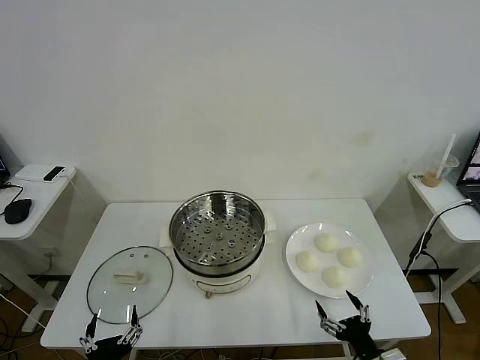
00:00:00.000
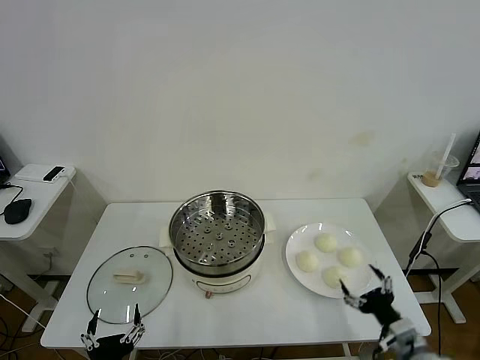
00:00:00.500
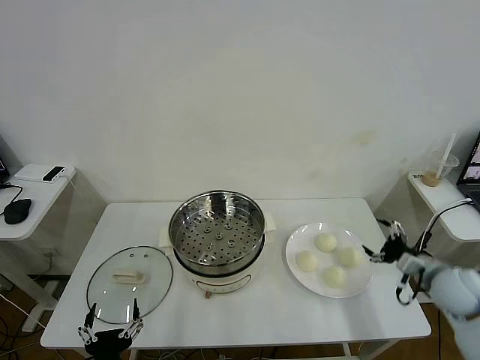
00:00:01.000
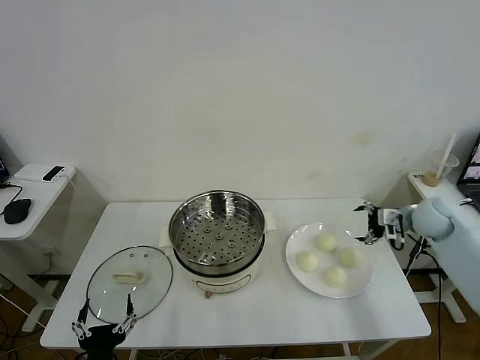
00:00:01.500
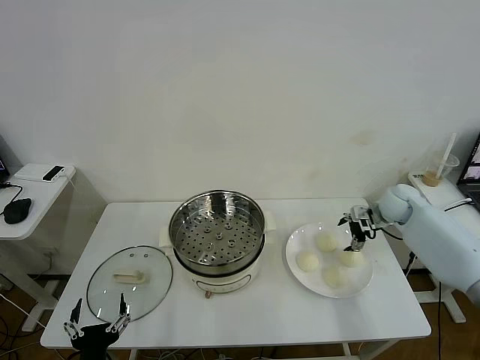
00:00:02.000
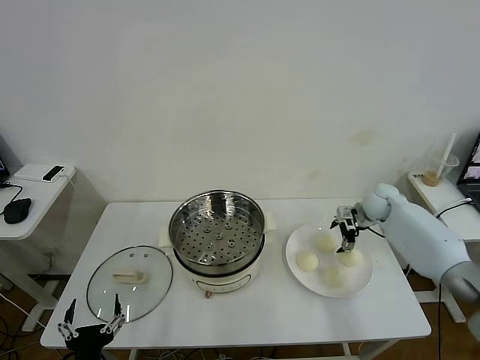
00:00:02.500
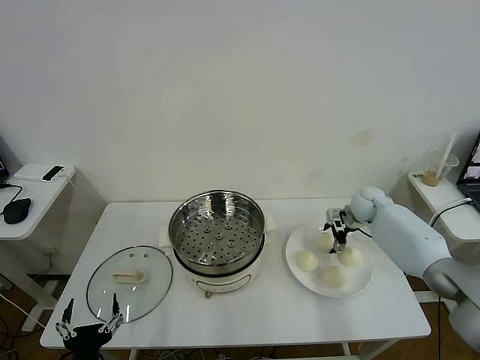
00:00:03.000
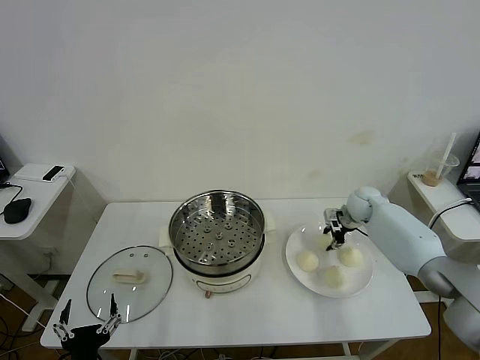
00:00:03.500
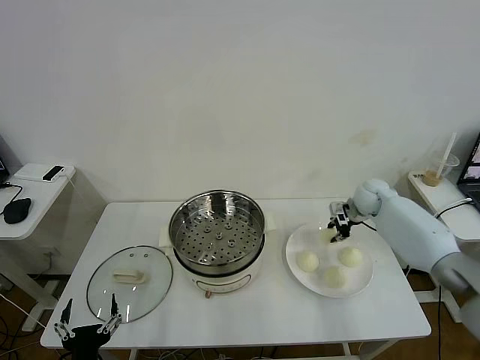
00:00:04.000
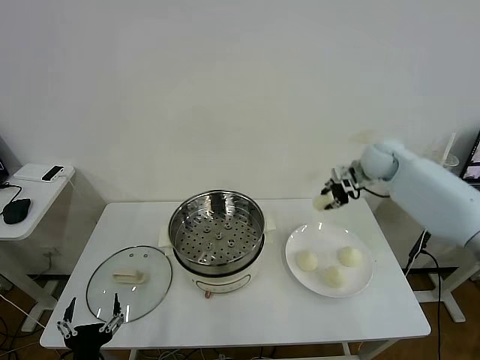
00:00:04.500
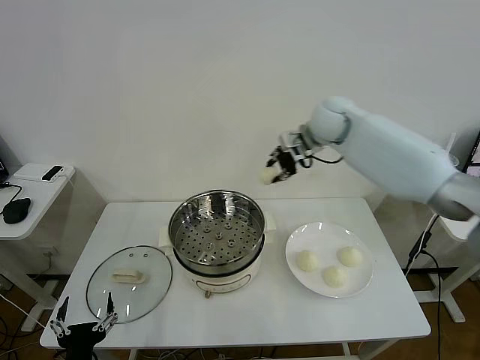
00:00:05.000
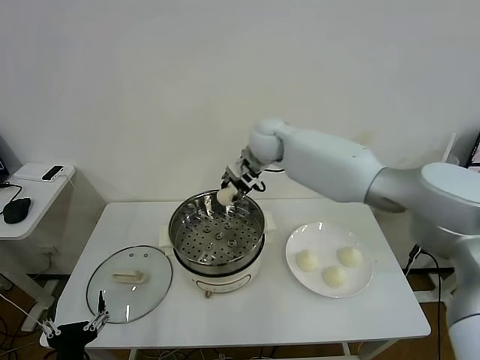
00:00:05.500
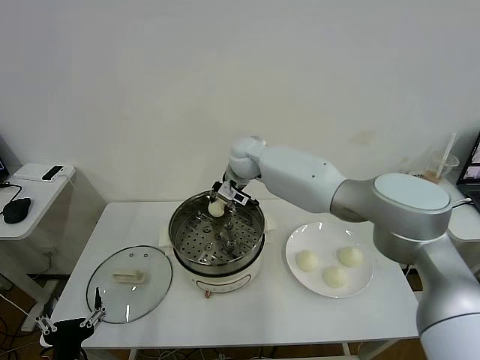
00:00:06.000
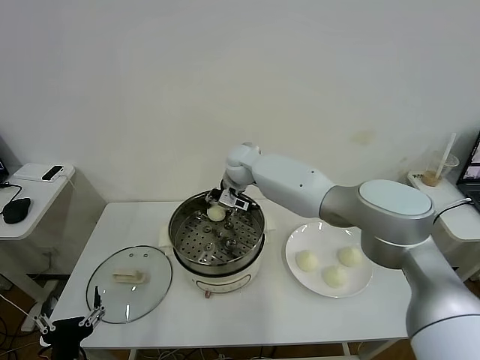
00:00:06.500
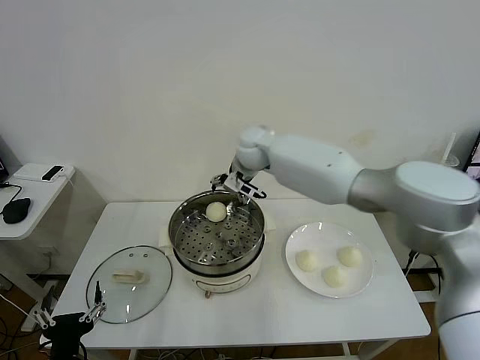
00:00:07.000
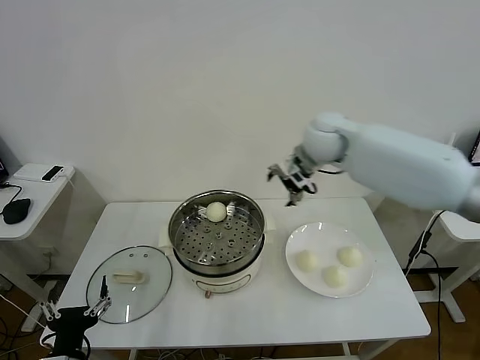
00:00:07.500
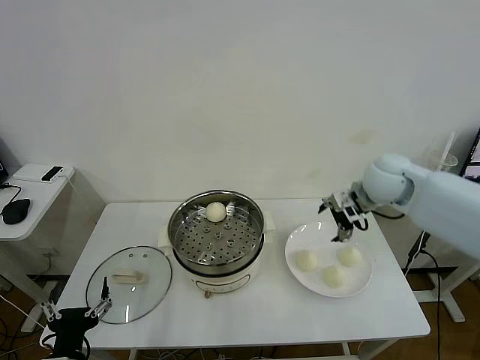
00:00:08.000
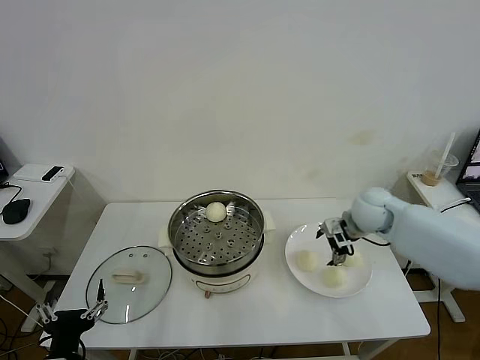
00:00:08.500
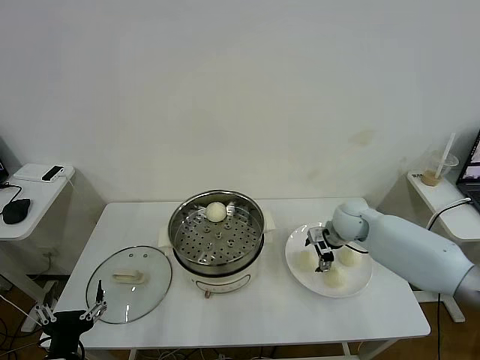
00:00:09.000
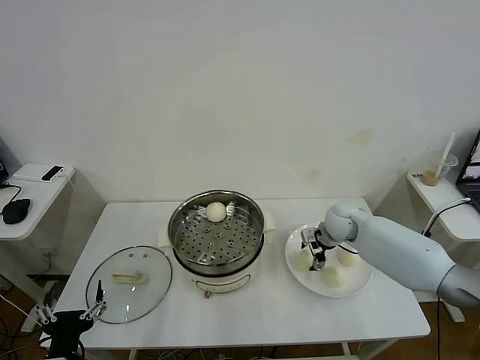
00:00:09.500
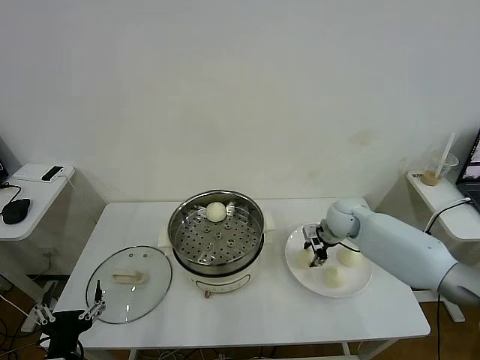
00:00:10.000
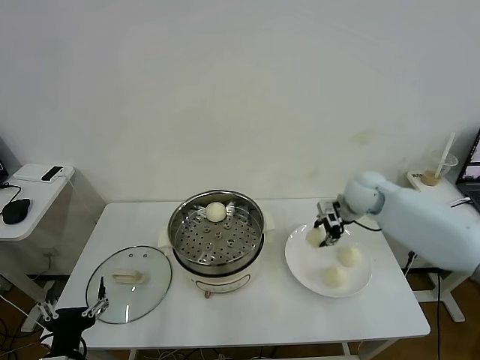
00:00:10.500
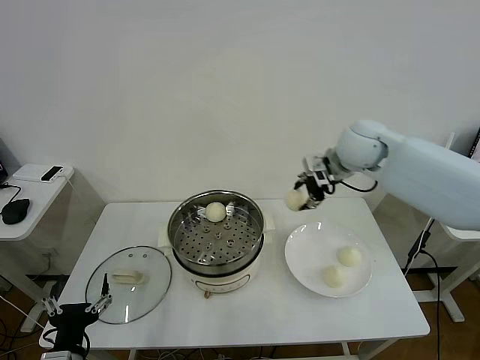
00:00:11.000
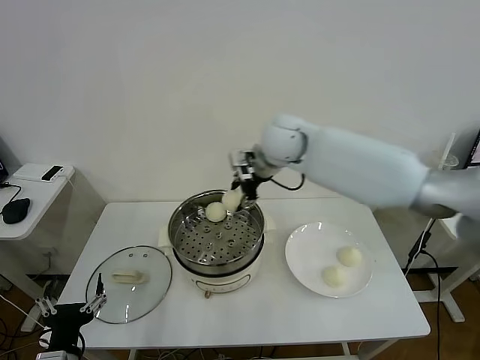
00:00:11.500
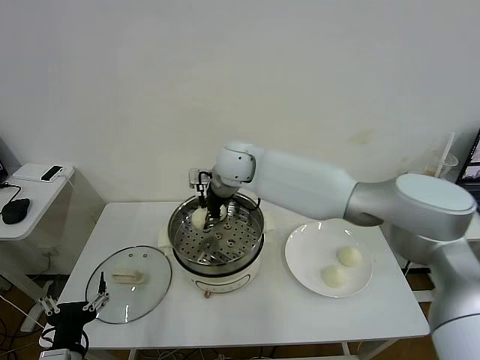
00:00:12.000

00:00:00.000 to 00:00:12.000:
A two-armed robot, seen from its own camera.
Task of the whole recording: take steamed baozi put them in steamer then cover it.
Step, 00:00:00.000 to 00:00:03.500: Grasp the baozi in the plate with right gripper.
Step, 00:00:04.000 to 00:00:06.500: Place the baozi on the steamer with right gripper.
Step, 00:00:07.000 to 00:00:09.500: Grasp the baozi in the plate with right gripper.
00:00:02.000 to 00:00:04.000: The right gripper ends up some 5 cm from where it was, and closes.
00:00:04.000 to 00:00:06.000: The right gripper is displaced to the left by approximately 35 cm.
00:00:06.000 to 00:00:08.000: The right gripper is displaced to the right by some 30 cm, and opens.
00:00:08.000 to 00:00:10.000: The right gripper is displaced downward by about 15 cm, and closes its fingers.
00:00:10.000 to 00:00:12.000: The right gripper shifts about 30 cm to the left and upward.

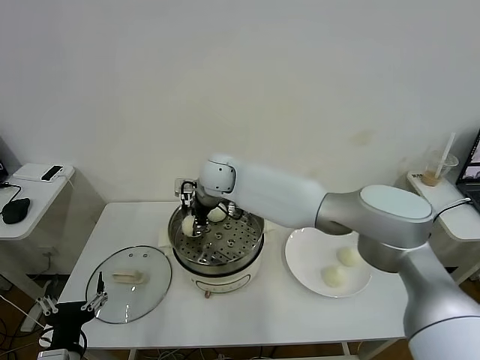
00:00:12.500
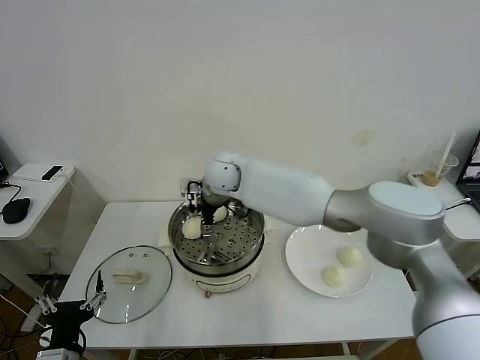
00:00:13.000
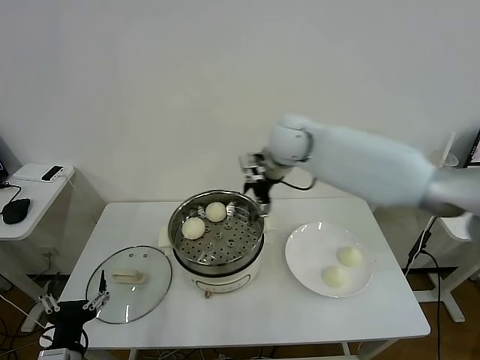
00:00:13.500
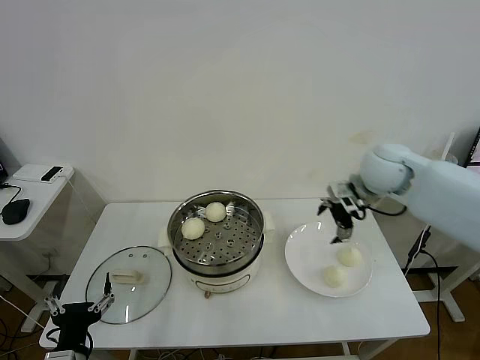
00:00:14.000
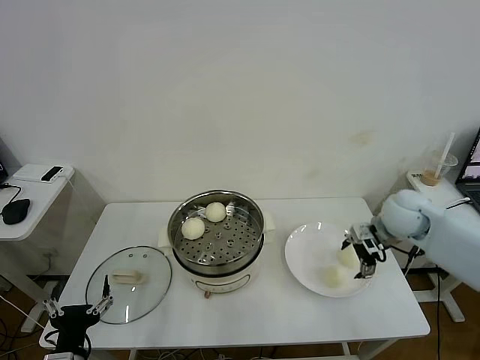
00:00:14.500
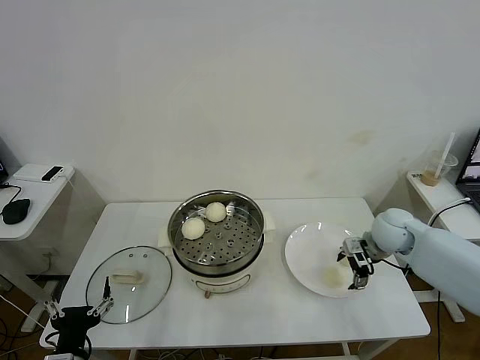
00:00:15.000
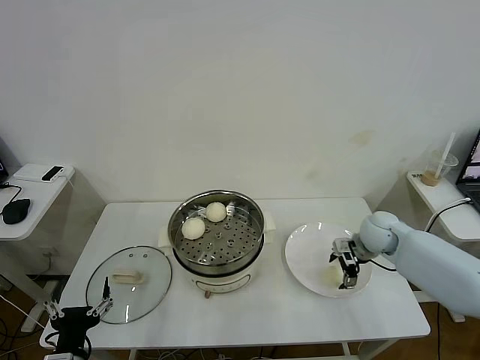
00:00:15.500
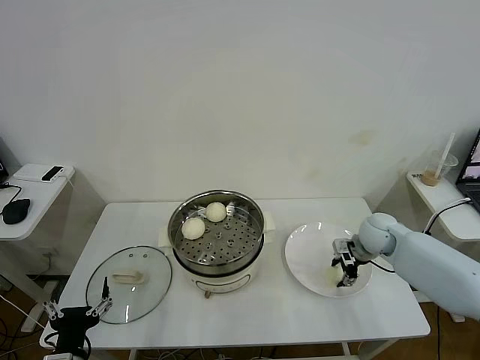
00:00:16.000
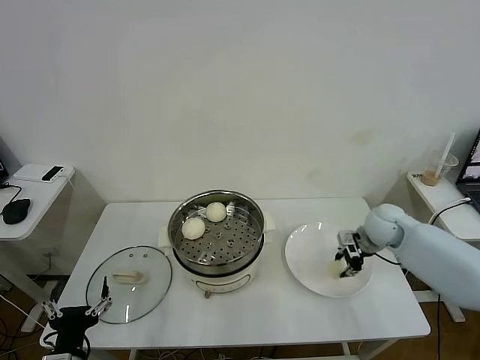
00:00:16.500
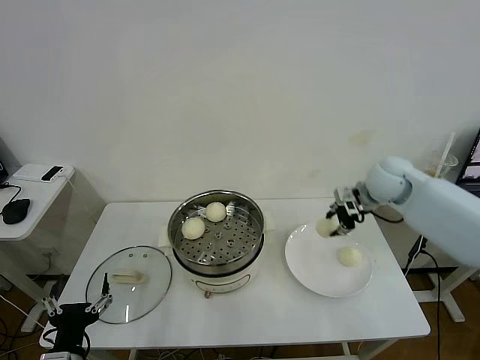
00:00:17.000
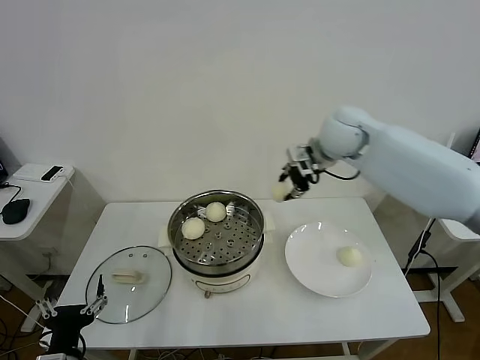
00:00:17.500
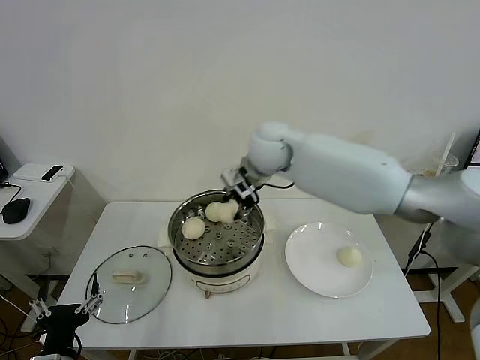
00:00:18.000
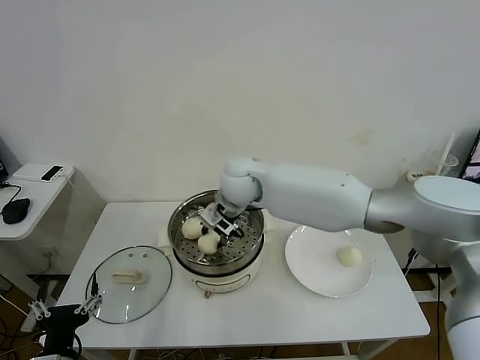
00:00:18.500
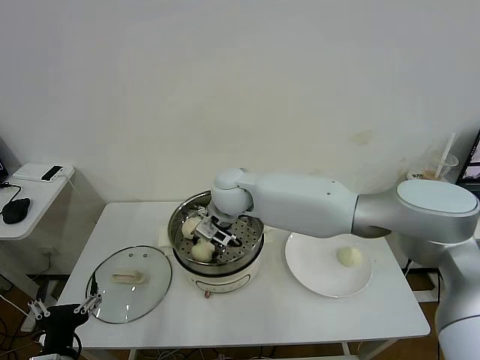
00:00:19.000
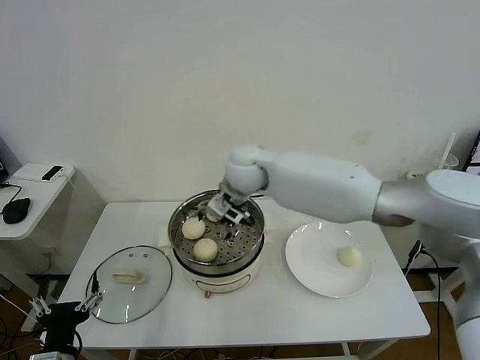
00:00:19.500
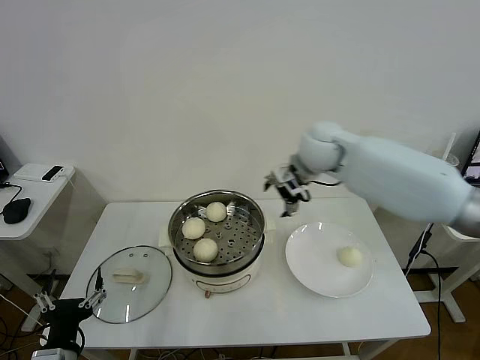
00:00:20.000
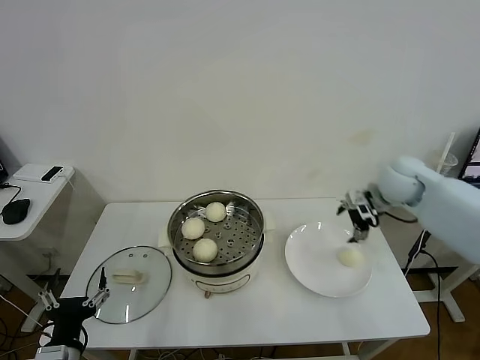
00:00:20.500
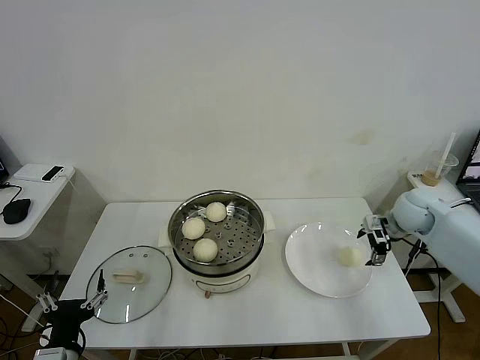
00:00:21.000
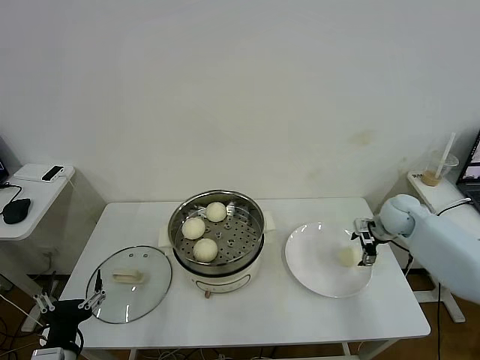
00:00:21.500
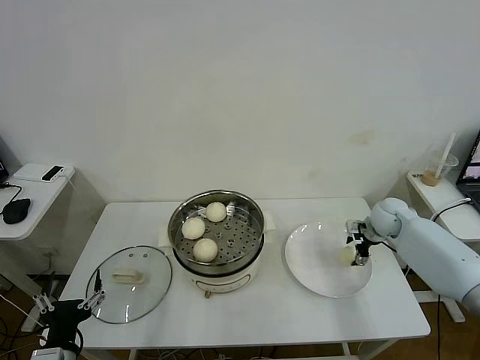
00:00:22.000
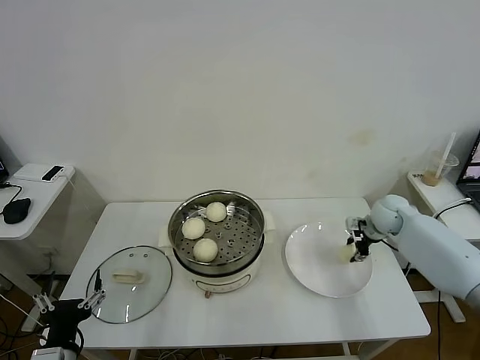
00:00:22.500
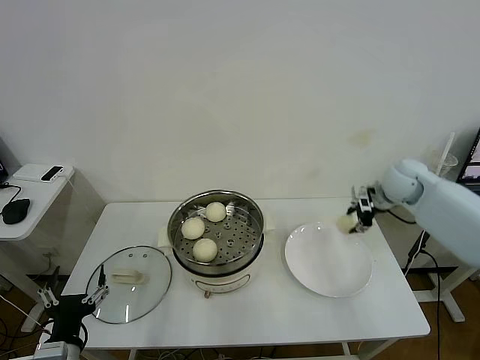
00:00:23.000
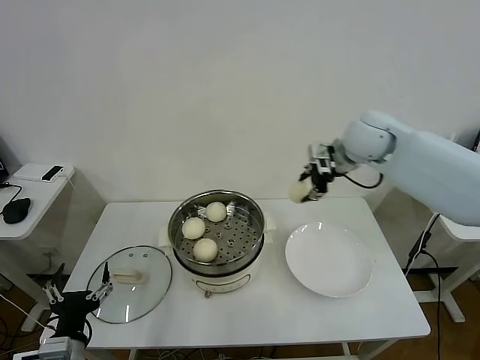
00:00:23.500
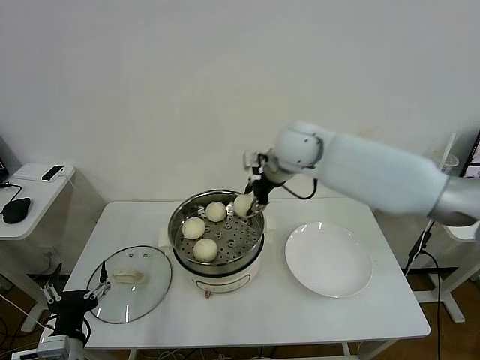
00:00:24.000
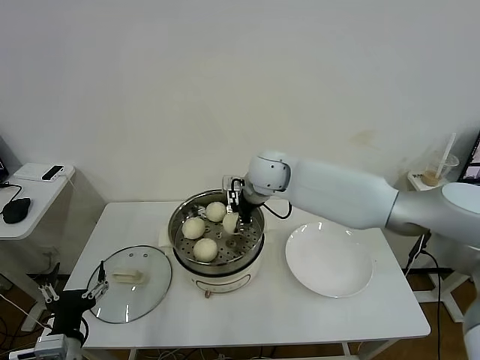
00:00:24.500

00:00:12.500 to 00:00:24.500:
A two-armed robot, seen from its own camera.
Task of the whole recording: take steamed baozi put them in steamer then cover it.
Step, 00:00:13.500 to 00:00:16.000: Grasp the baozi in the plate with right gripper.
Step, 00:00:16.500 to 00:00:19.000: Place the baozi on the steamer with right gripper.
Step, 00:00:19.500 to 00:00:22.000: Grasp the baozi in the plate with right gripper.
00:00:12.500 to 00:00:14.500: The right gripper is displaced to the right by about 40 cm, and opens its fingers.
00:00:14.500 to 00:00:16.500: The right gripper is displaced downward by some 10 cm, and closes up.
00:00:16.500 to 00:00:18.500: The right gripper moves to the left, roughly 35 cm.
00:00:18.500 to 00:00:20.500: The right gripper moves to the right, roughly 35 cm, and opens up.
00:00:20.500 to 00:00:22.500: The right gripper shifts roughly 15 cm downward, and closes its fingers.
00:00:22.500 to 00:00:24.500: The right gripper moves to the left and upward, roughly 35 cm.

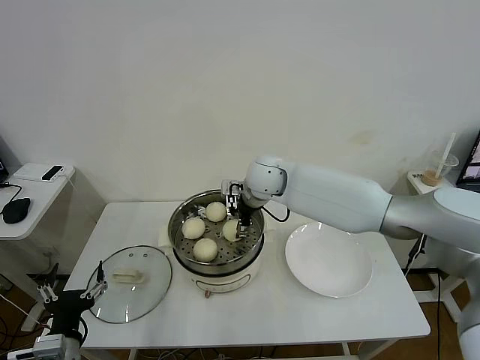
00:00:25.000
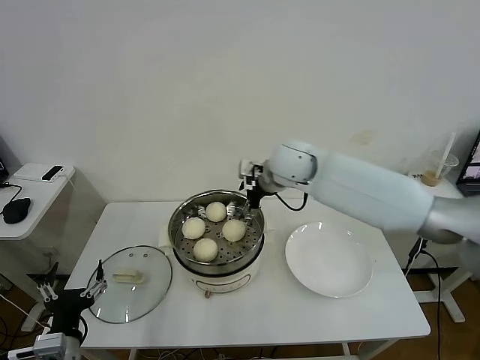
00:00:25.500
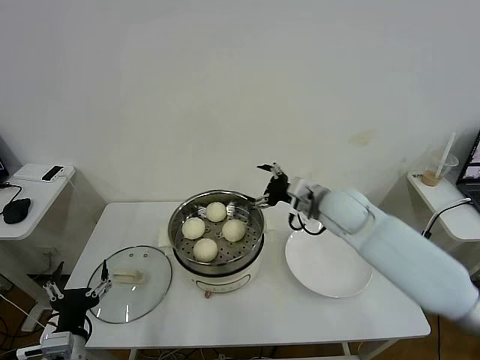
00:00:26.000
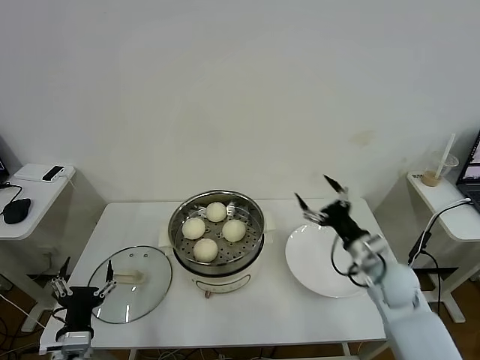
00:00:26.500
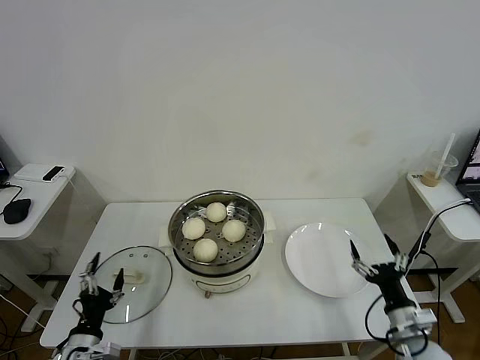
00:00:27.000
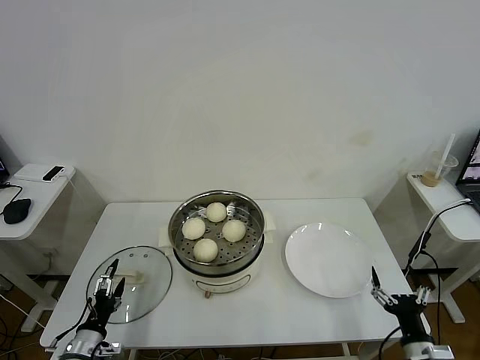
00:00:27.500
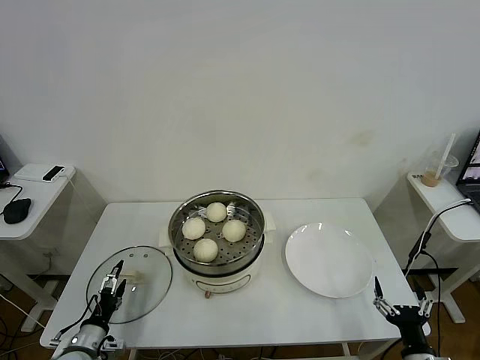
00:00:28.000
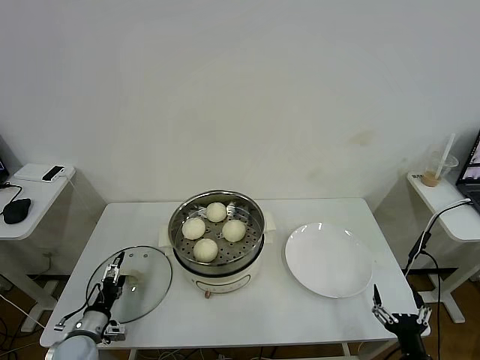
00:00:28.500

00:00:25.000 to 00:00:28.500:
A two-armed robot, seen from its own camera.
Task of the whole recording: take steamed baozi put them in steamer then cover it.
00:00:25.000 to 00:00:27.000: The right gripper travels backward, to the right and downward by about 50 cm. The left gripper is displaced downward by approximately 10 cm.
00:00:27.000 to 00:00:28.500: The right gripper is displaced backward by approximately 10 cm; the left gripper is displaced forward and downward by approximately 10 cm.
